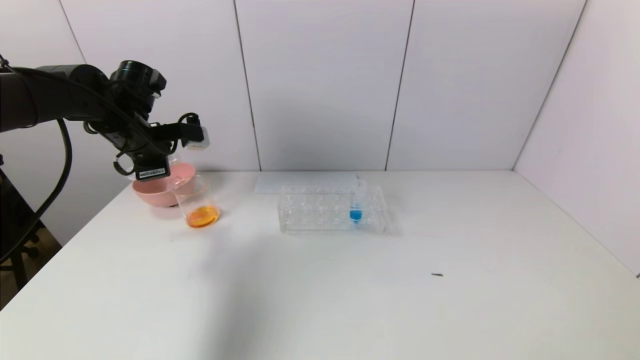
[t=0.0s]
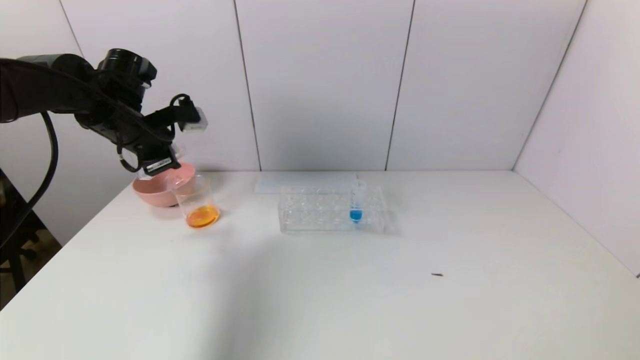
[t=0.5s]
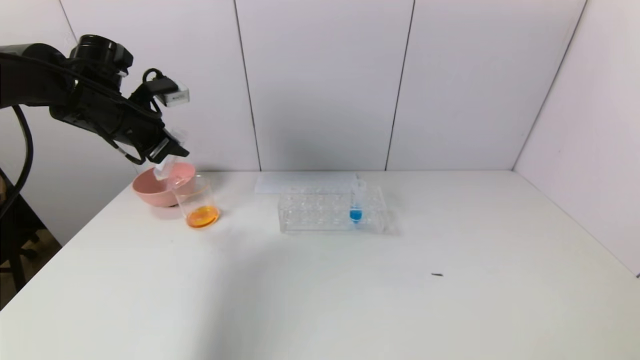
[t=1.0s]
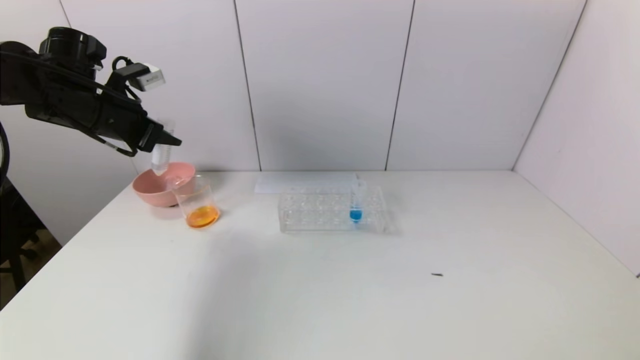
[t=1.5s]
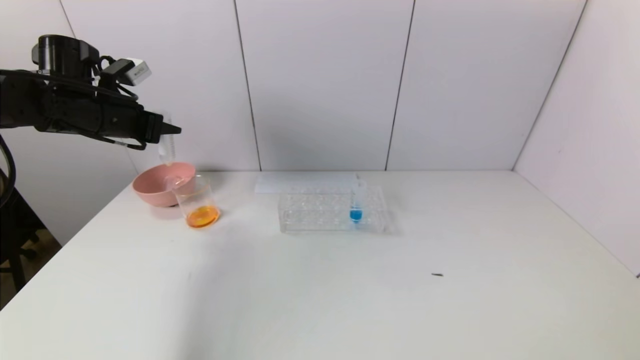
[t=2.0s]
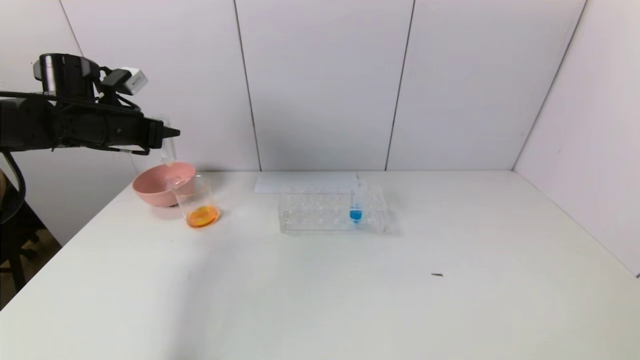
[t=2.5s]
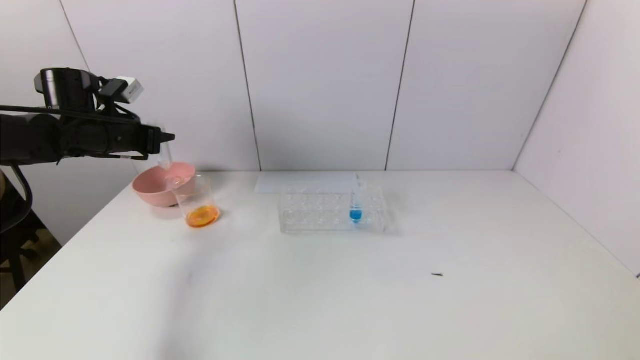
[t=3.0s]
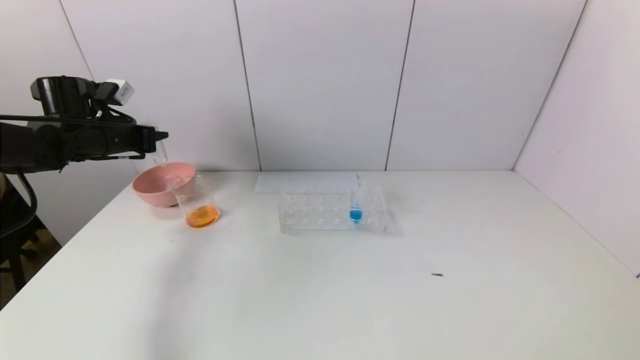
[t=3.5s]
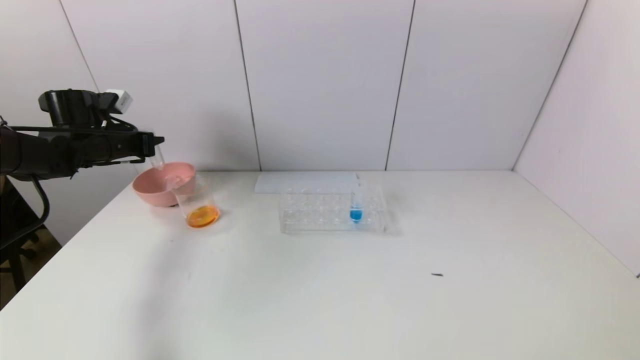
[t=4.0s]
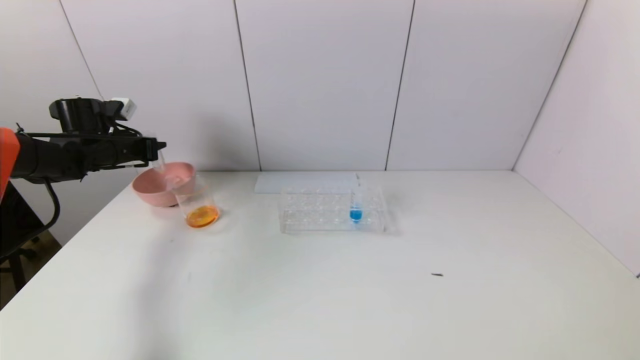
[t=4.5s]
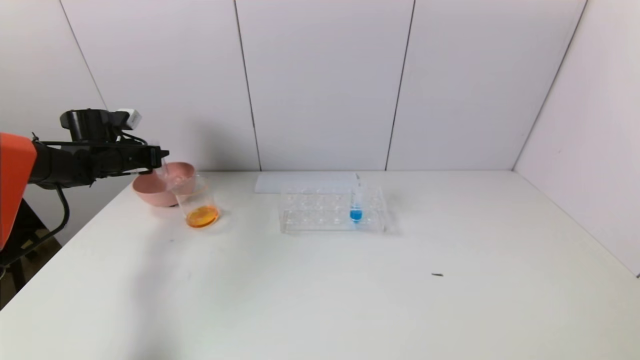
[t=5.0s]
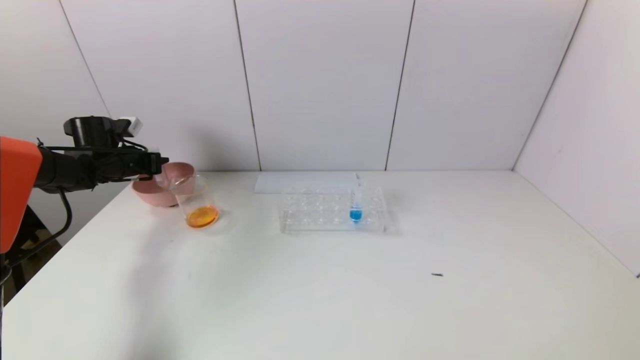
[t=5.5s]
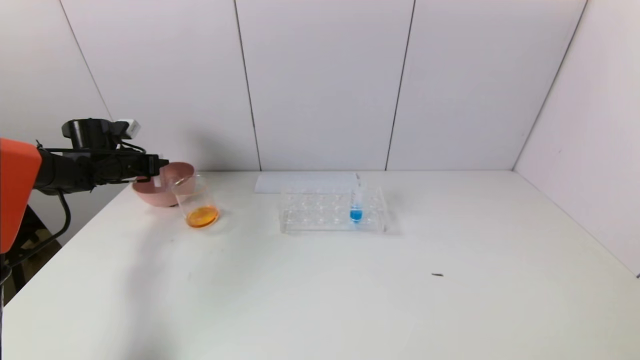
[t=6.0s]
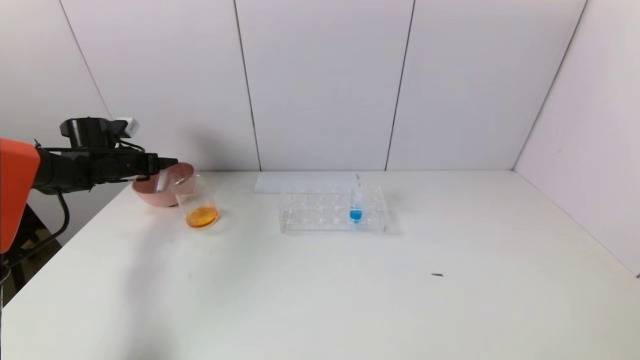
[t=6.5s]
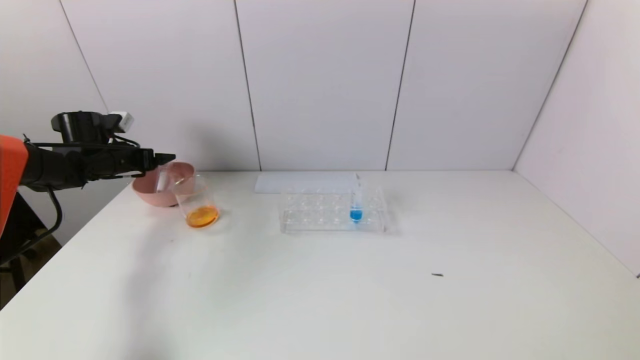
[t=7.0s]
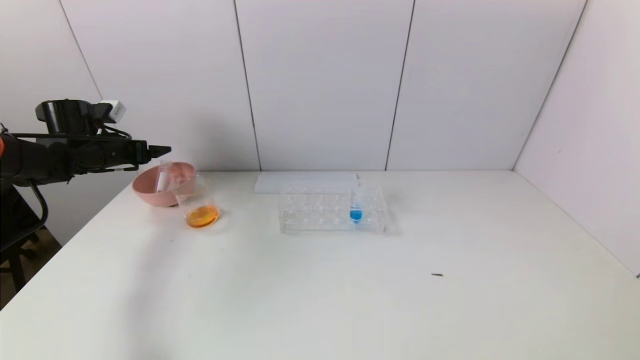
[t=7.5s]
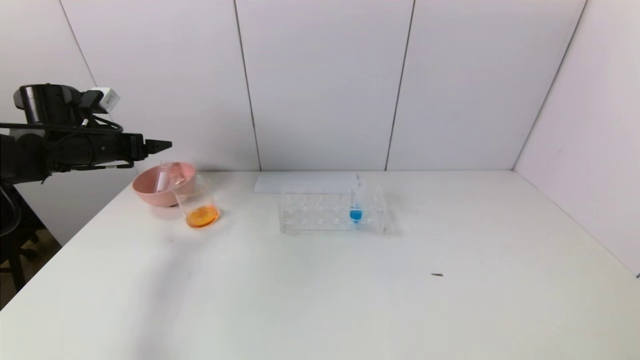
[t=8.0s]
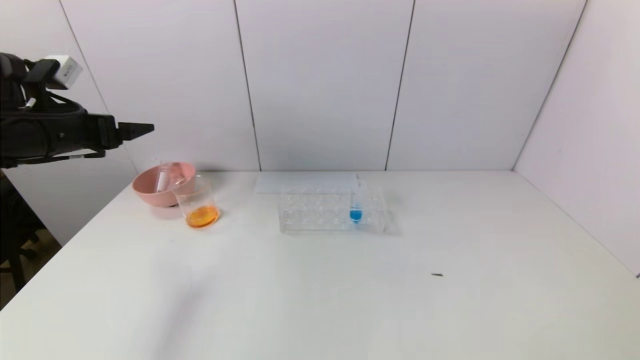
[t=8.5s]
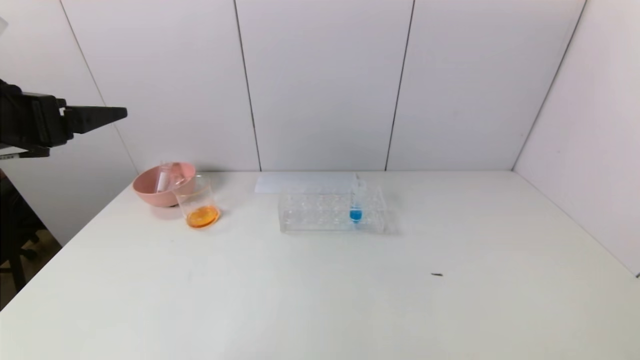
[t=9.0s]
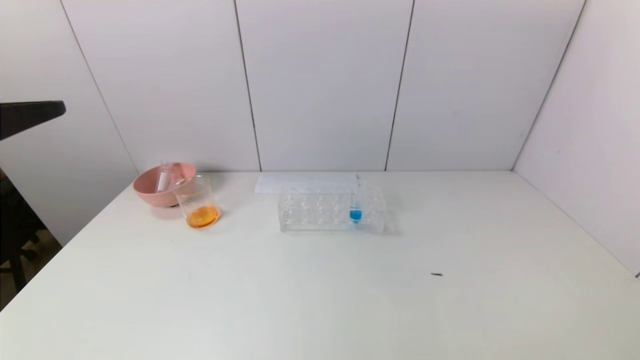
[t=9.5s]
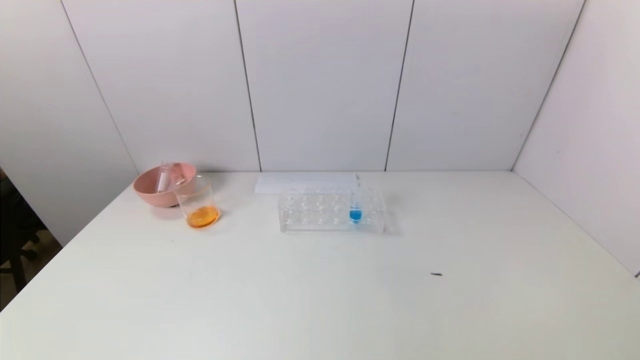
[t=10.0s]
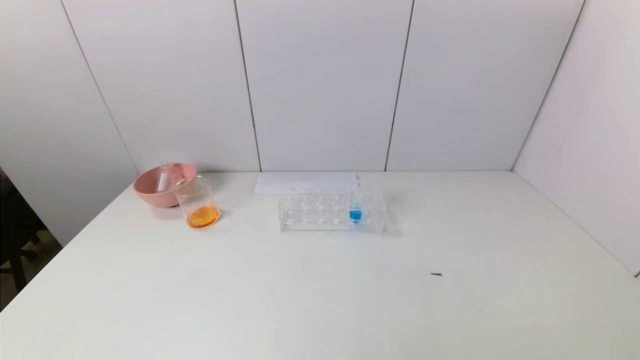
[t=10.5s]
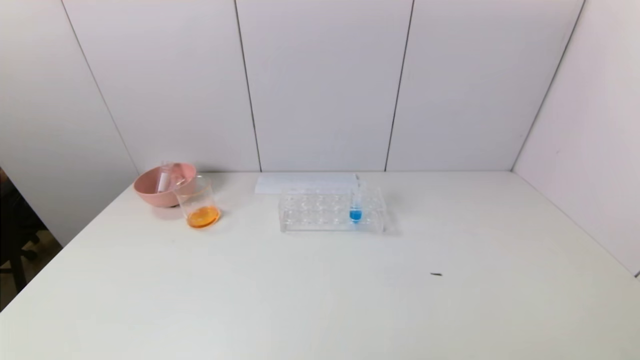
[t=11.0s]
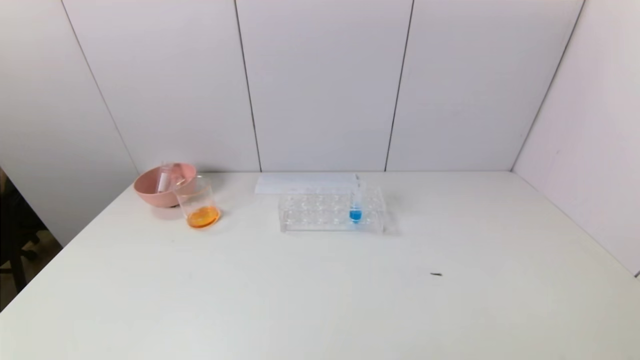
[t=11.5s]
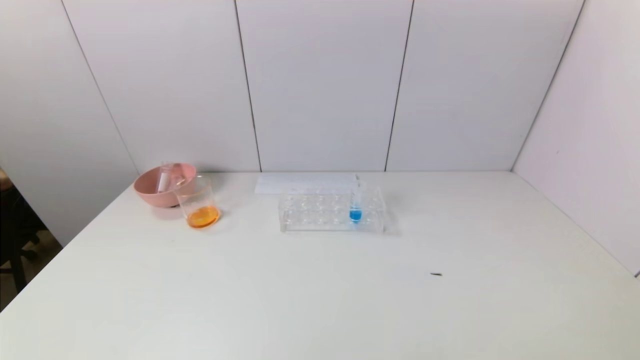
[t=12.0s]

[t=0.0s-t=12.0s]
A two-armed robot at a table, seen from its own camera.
Task of the whole recording: pick up the test tube with yellow pigment and the test tube with red pigment by grippers and pour them into the beaker.
Step, t=0.0s to t=6.0s: Place the test tube into the pink bowl with the left gripper.
t=0.0s to t=2.0s: The left gripper ends up some 5 cm from where it was.
t=2.0s to t=4.0s: The left gripper is displaced downward, to the left and forward by some 10 cm.
t=4.0s to t=6.0s: The left gripper is displaced downward by approximately 5 cm.
t=6.0s to t=8.0s: The left gripper shifts approximately 10 cm backward and upward, and opens up.
t=8.0s to t=10.0s: The left gripper travels backward by some 35 cm.
